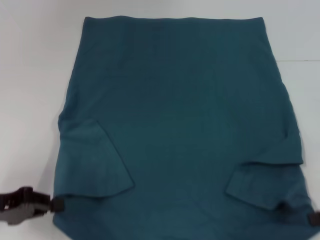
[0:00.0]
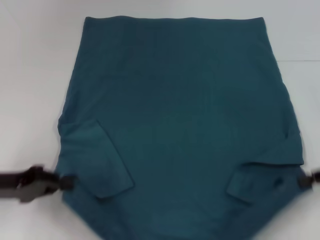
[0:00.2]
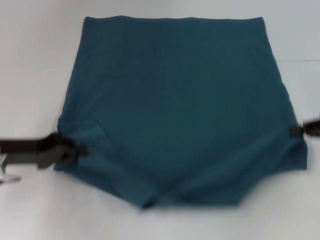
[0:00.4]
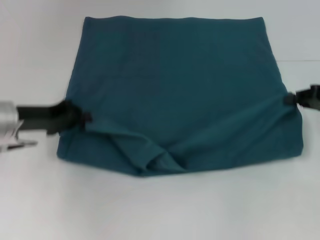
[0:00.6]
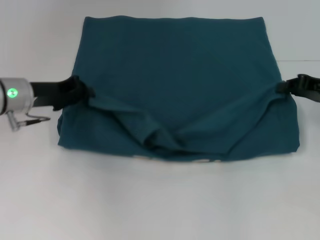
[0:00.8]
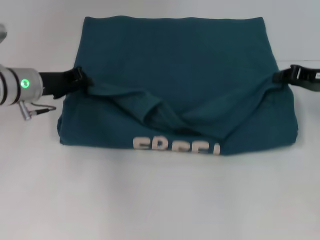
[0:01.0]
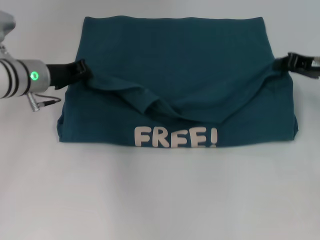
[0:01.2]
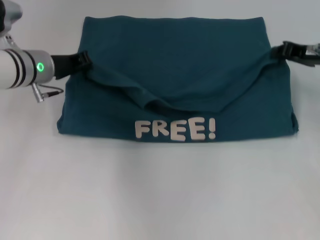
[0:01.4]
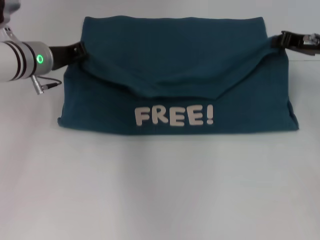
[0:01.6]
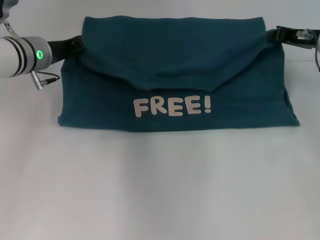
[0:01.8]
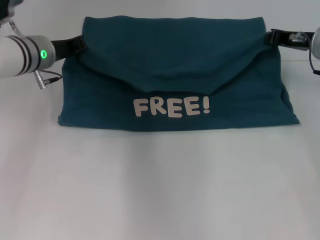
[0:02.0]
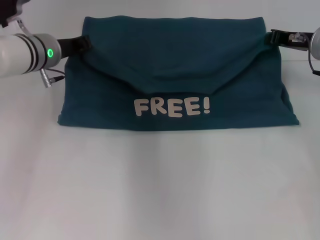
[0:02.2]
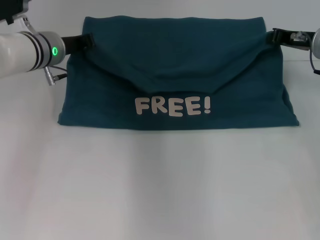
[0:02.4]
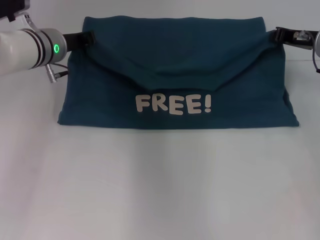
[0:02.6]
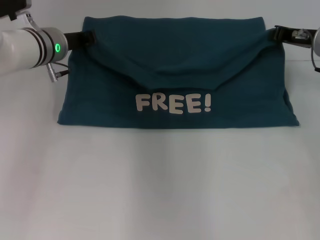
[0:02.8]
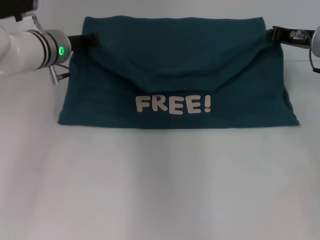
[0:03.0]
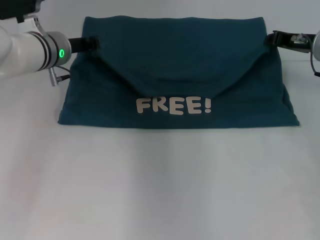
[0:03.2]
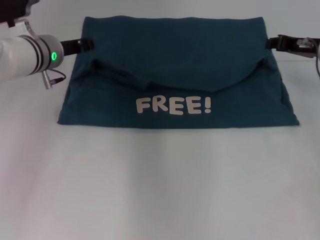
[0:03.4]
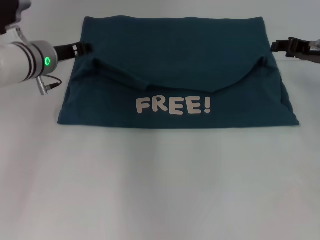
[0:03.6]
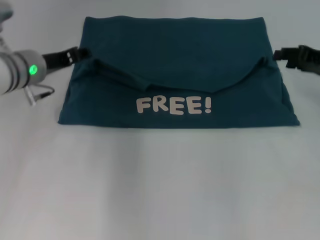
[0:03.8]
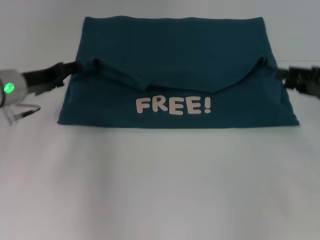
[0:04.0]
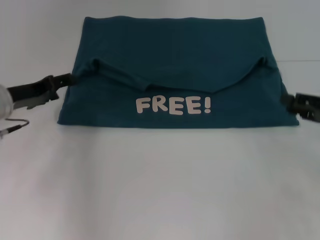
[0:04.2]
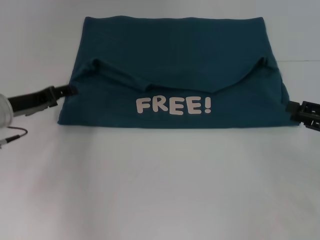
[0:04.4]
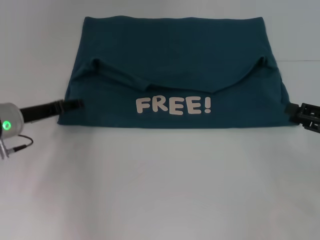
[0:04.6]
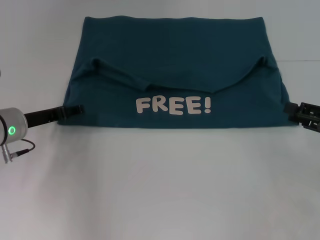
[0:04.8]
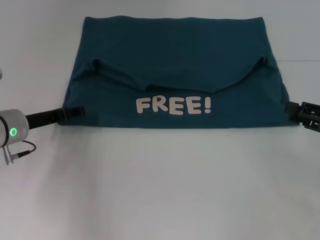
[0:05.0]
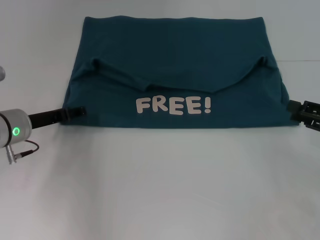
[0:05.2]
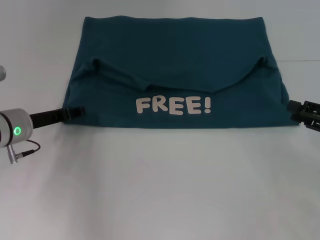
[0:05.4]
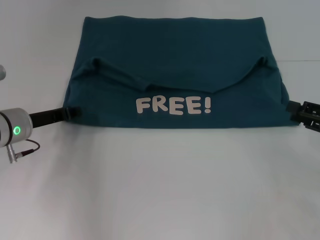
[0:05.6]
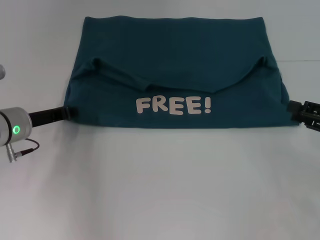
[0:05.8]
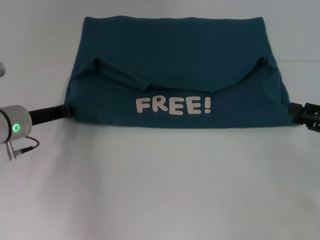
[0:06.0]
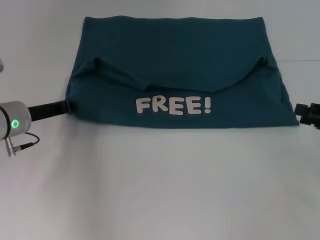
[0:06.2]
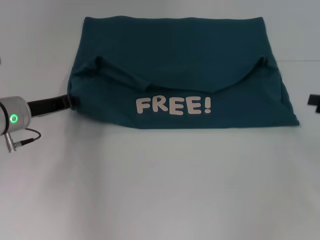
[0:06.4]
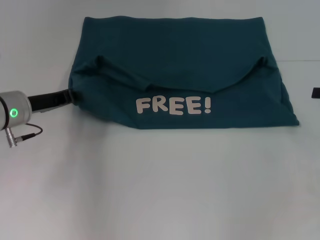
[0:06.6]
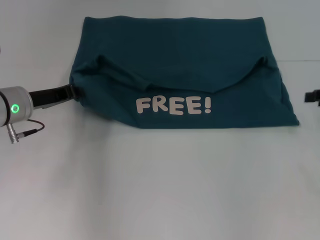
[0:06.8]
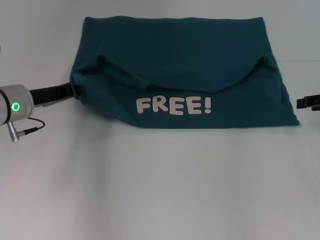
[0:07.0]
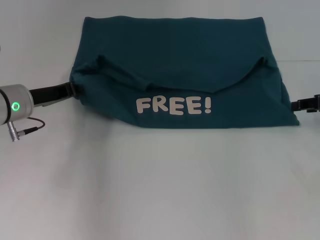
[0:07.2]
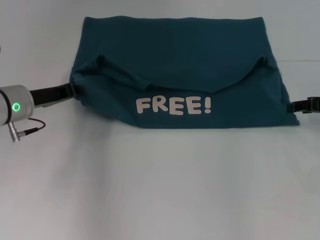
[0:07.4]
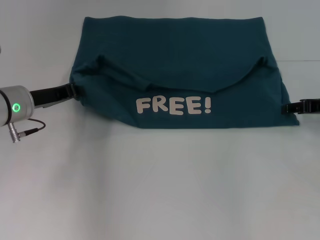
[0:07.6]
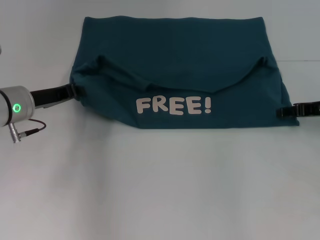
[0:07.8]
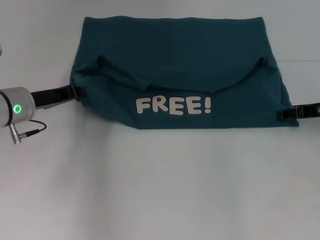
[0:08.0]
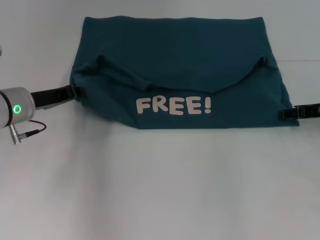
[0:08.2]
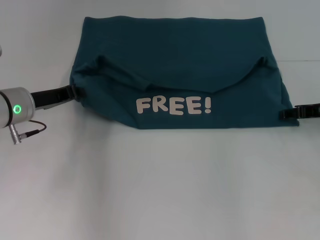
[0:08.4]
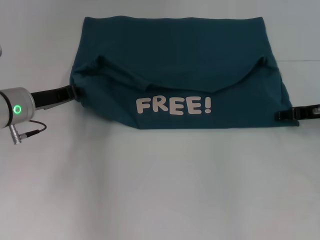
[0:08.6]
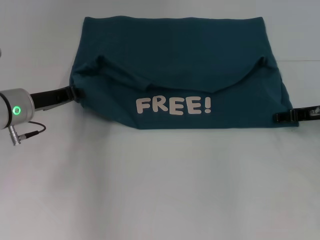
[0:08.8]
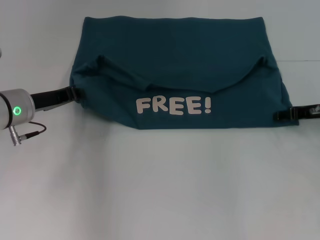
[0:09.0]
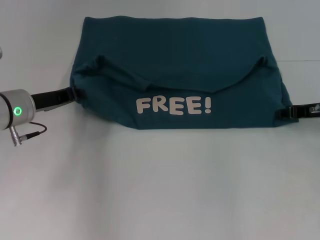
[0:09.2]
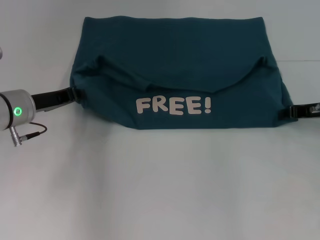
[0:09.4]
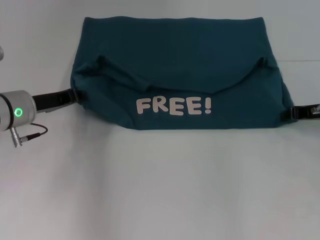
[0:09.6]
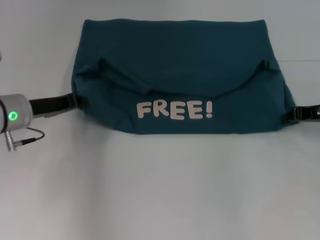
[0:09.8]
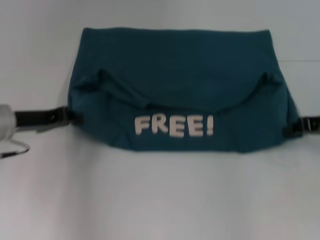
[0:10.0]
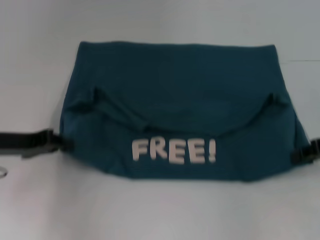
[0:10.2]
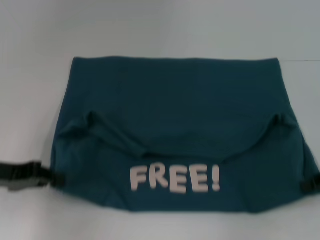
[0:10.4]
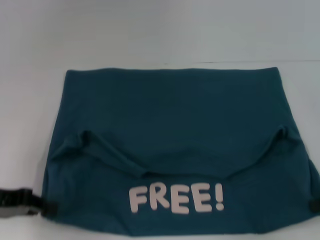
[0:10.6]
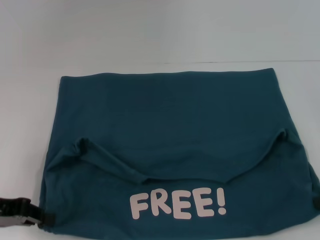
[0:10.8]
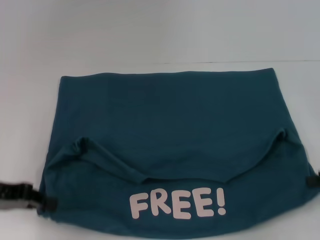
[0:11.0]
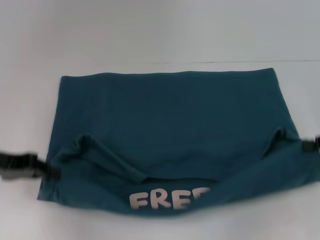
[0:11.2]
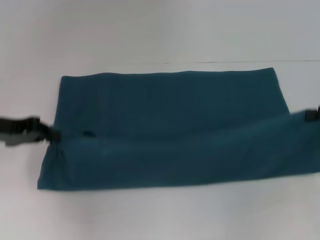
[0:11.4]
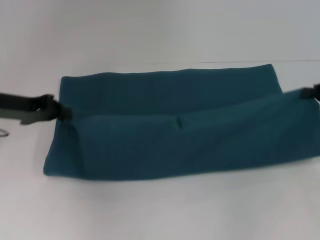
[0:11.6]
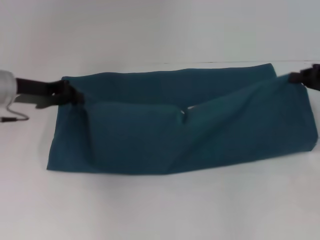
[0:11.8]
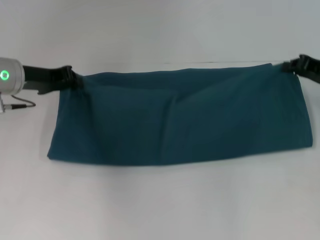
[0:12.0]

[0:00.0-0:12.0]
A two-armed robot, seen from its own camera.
Step, 0:00.0 to 0:03.6: Fold the clothes to the left.
Step, 0:00.0 to 0:03.6: Fold the clothes to the right.
Step, 0:03.8 to 0:10.6: Pull the clothes with your left hand.
Step, 0:03.8 to 0:10.6: Pull the clothes with your right hand.
0:00.0 to 0:01.6: The right gripper travels forward and to the left by some 20 cm. Meanwhile the left gripper moves forward and to the right, approximately 25 cm.
0:01.6 to 0:03.0: The grippers stay close to where they were, moving slightly.
0:03.0 to 0:04.4: The right gripper goes about 20 cm backward and to the right, and opens its fingers. The left gripper moves to the left and backward, about 15 cm, and opens up.
0:04.4 to 0:06.0: The left gripper closes its fingers.
0:06.0 to 0:07.6: The right gripper shifts roughly 10 cm forward.
0:07.6 to 0:09.0: The grippers move only a little.
0:09.0 to 0:10.4: The right gripper travels backward by some 10 cm, and closes; the left gripper moves backward and to the left, approximately 10 cm.
0:10.4 to 0:12.0: The right gripper moves forward, about 10 cm; the left gripper is displaced forward and to the right by some 15 cm.

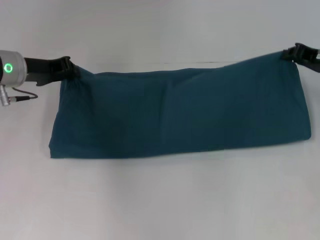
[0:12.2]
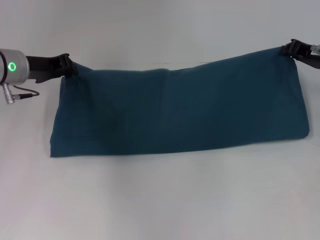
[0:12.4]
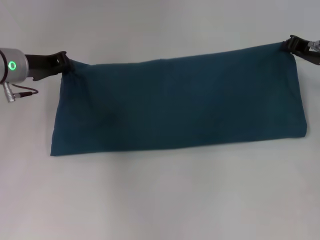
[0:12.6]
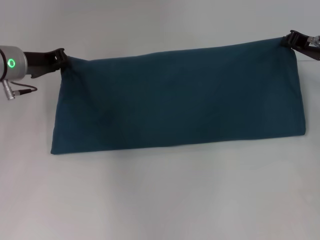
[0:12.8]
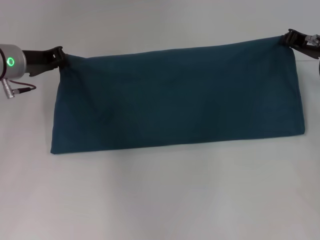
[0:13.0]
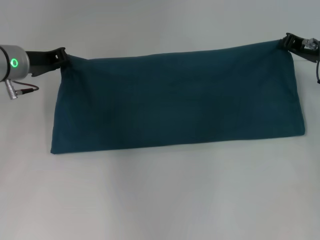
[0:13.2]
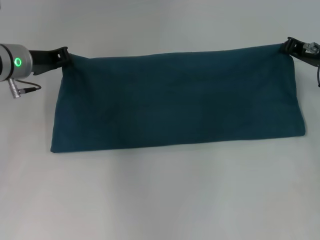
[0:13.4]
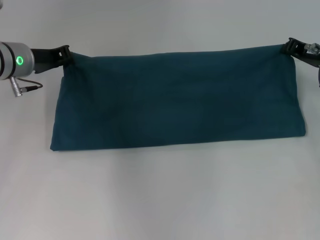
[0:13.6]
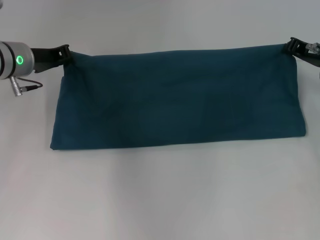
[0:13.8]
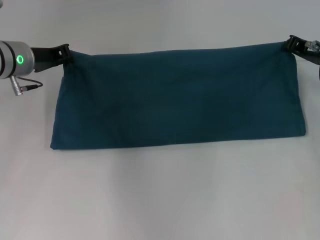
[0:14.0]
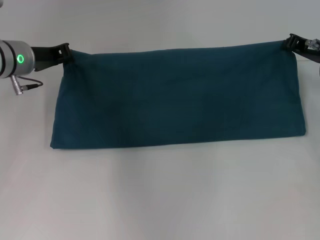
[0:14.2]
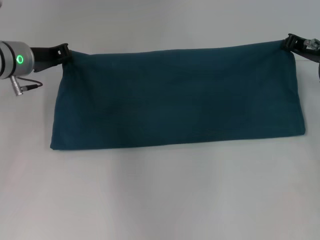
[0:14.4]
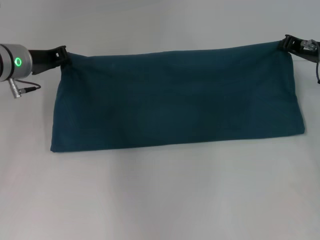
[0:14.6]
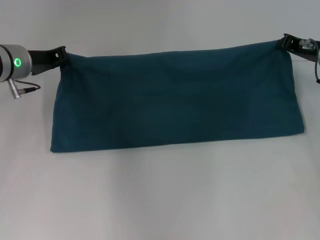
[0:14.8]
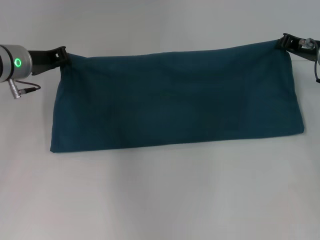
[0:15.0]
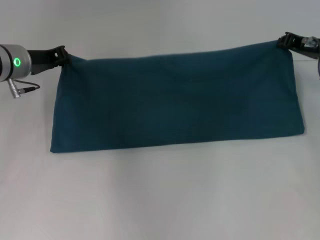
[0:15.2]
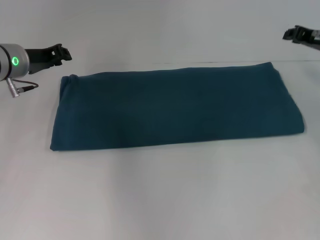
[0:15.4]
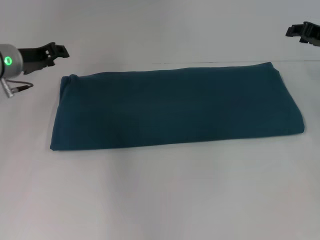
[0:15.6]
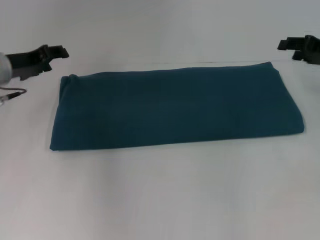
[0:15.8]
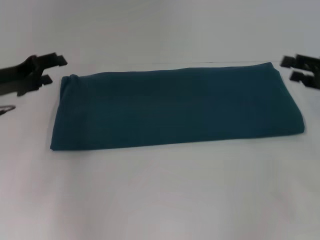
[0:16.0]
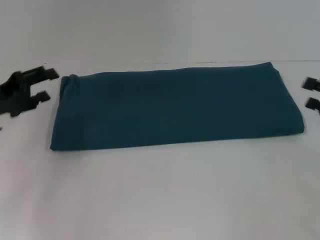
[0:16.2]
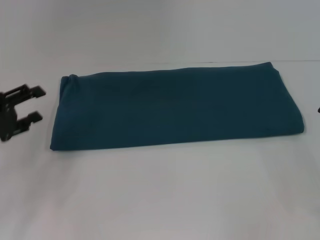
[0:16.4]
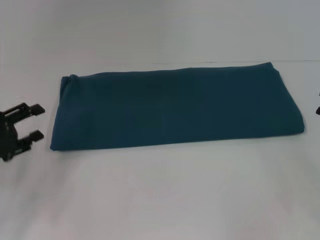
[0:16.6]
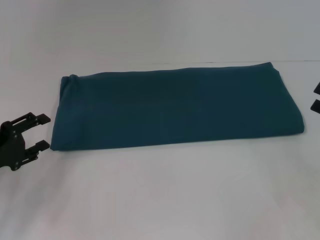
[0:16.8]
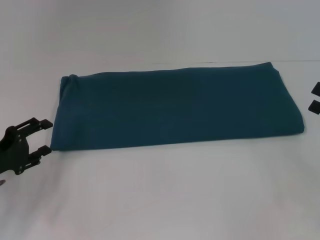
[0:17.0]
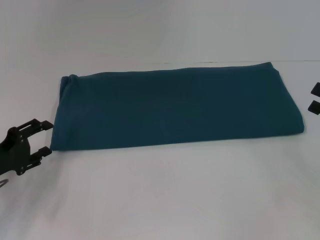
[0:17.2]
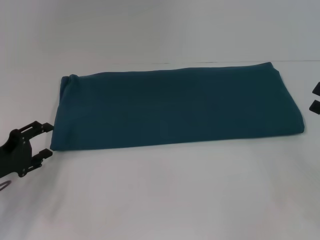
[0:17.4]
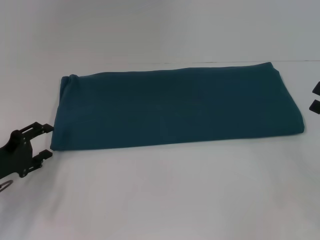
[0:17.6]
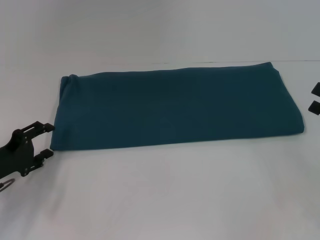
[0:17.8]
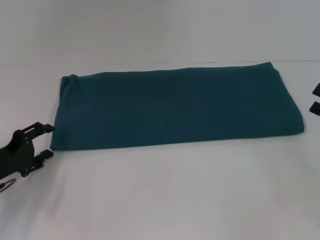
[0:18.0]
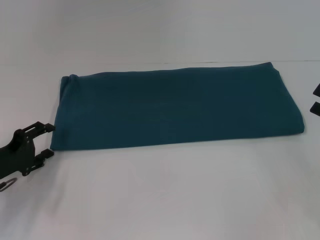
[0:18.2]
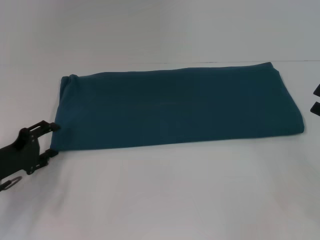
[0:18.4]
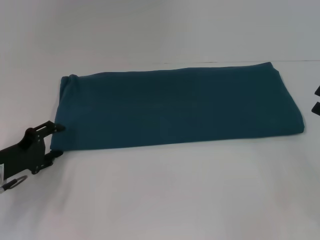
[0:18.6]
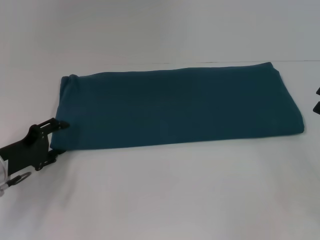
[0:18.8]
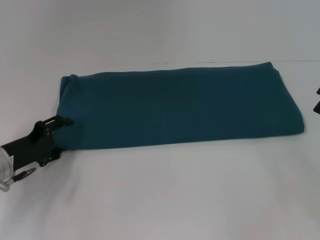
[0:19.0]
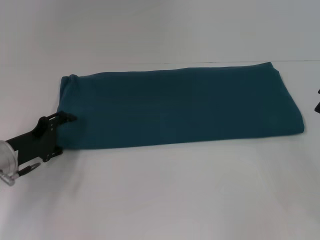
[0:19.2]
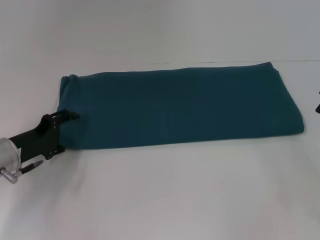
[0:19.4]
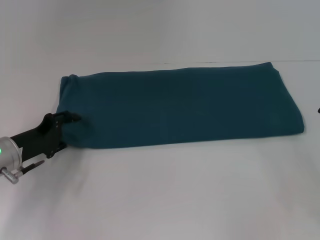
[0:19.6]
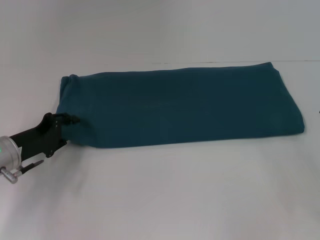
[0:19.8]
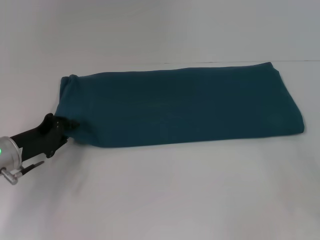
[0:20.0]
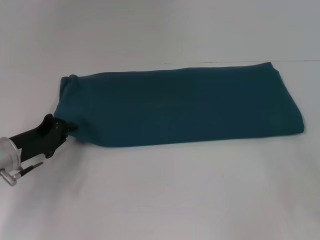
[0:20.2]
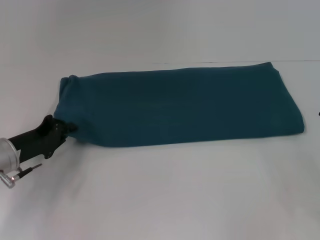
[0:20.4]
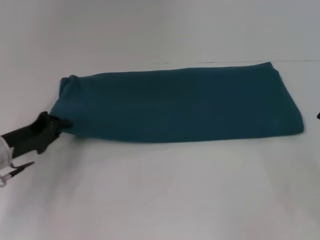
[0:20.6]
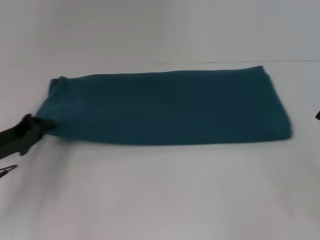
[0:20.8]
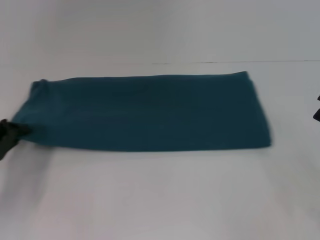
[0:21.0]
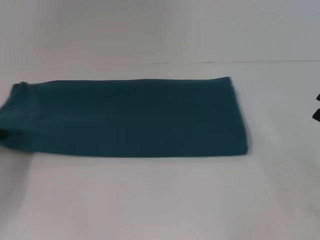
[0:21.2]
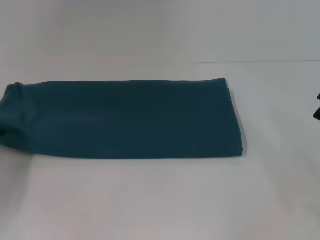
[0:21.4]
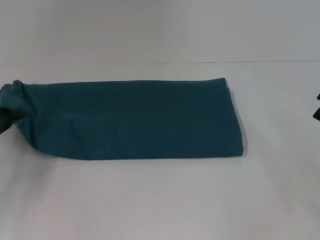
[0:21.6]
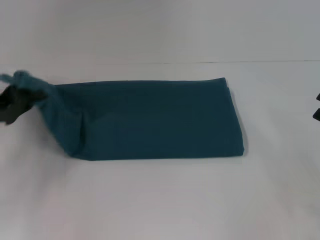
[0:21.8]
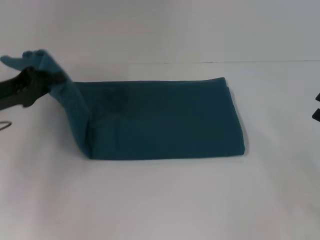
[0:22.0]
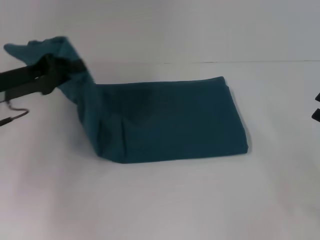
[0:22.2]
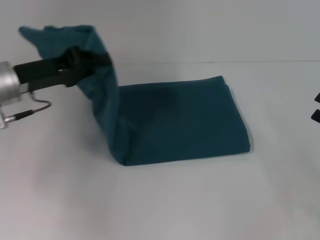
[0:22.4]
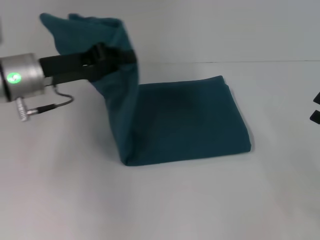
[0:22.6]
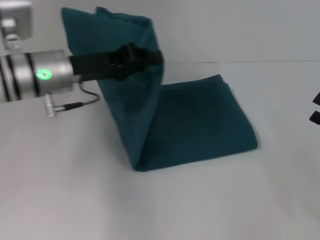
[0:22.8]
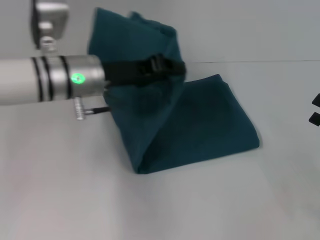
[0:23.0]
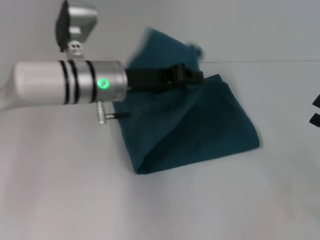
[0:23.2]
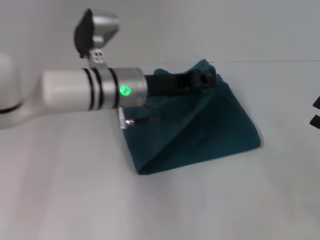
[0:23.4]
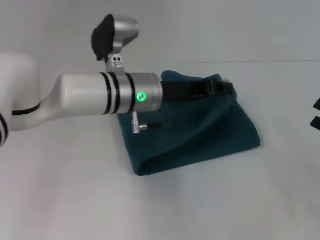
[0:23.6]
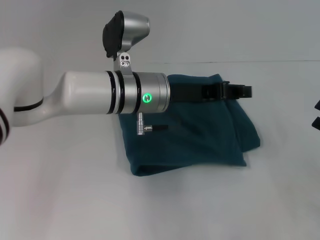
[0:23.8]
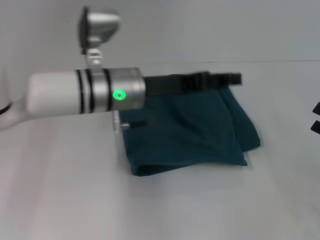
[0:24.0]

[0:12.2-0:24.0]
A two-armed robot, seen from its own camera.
Step, 0:12.2 to 0:15.2: Fold the clothes to the right.
Step, 0:12.2 to 0:23.6: Fold the clothes to the left.
0:12.2 to 0:15.2: The grippers move only a little.
0:15.2 to 0:16.6: The left gripper moves backward and to the left, about 20 cm, and opens its fingers. The right gripper travels backward and to the right by some 20 cm, and opens its fingers.
0:16.6 to 0:18.2: The left gripper moves downward, some 5 cm.
0:18.2 to 0:19.6: The left gripper shifts by some 5 cm.
0:19.6 to 0:21.0: The left gripper goes approximately 5 cm to the left, and closes.
0:21.0 to 0:22.6: The left gripper is displaced to the right, upward and forward by roughly 20 cm.
0:22.6 to 0:24.0: The left gripper is displaced to the right by approximately 10 cm.
